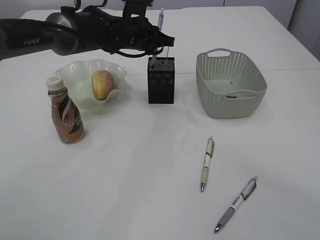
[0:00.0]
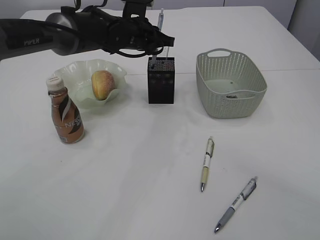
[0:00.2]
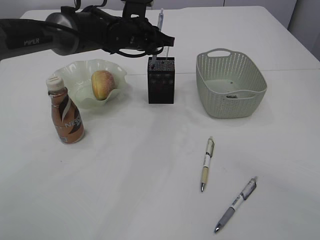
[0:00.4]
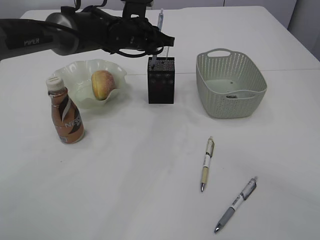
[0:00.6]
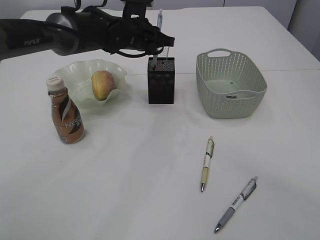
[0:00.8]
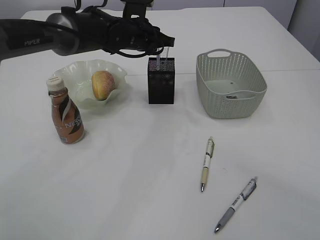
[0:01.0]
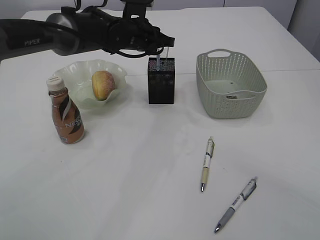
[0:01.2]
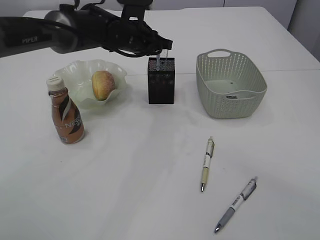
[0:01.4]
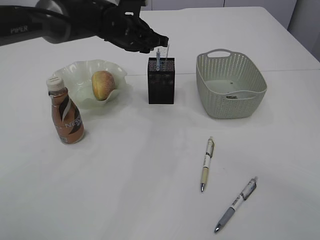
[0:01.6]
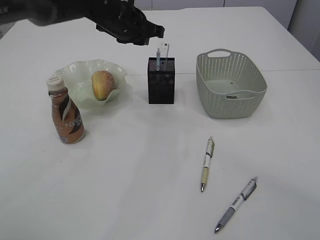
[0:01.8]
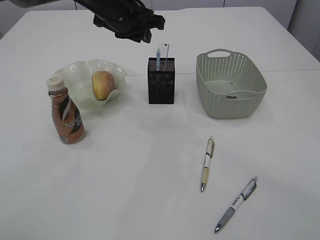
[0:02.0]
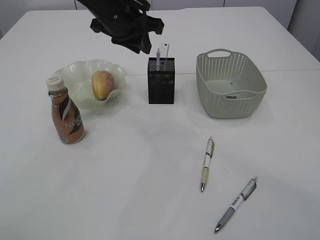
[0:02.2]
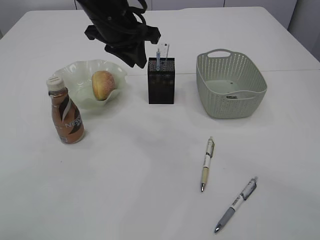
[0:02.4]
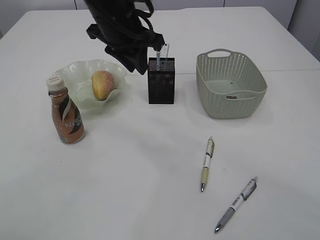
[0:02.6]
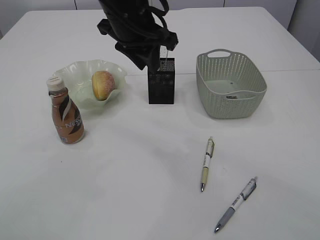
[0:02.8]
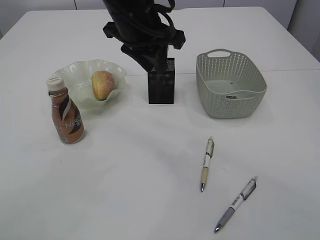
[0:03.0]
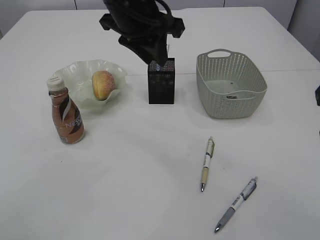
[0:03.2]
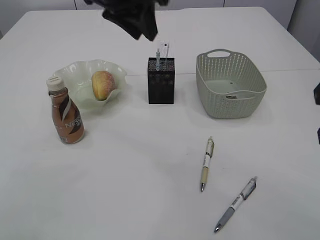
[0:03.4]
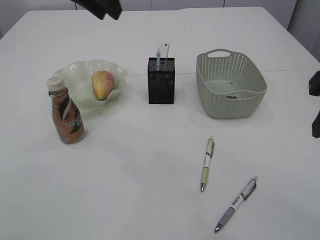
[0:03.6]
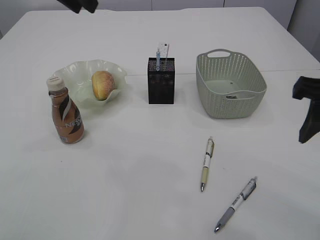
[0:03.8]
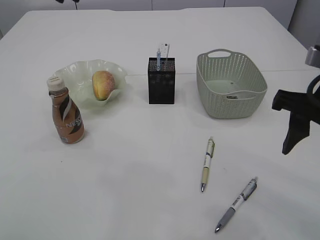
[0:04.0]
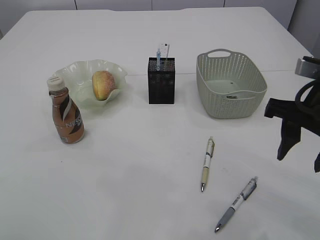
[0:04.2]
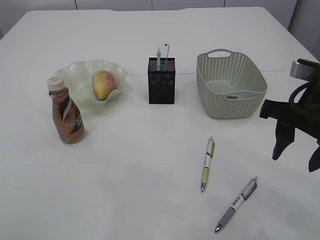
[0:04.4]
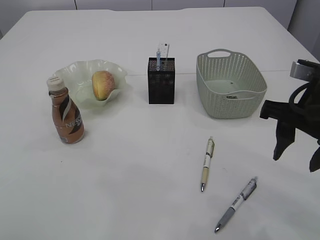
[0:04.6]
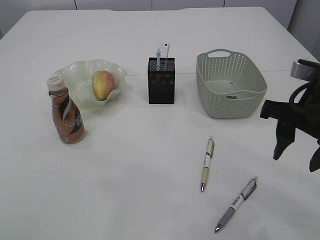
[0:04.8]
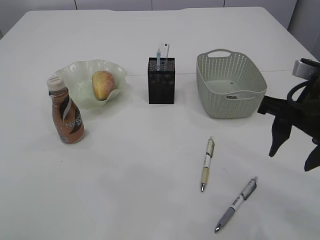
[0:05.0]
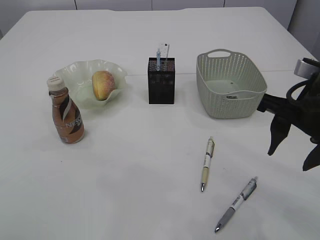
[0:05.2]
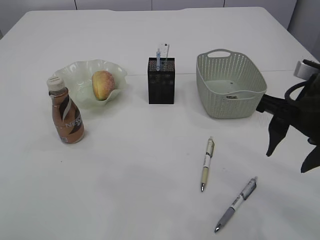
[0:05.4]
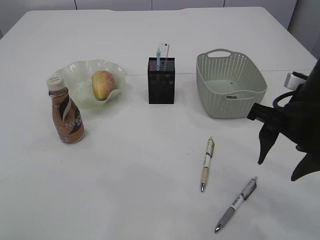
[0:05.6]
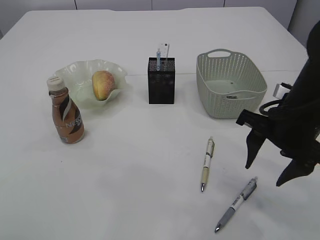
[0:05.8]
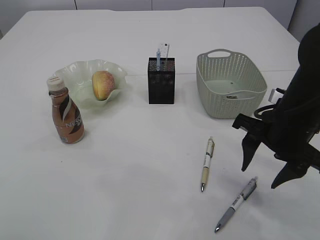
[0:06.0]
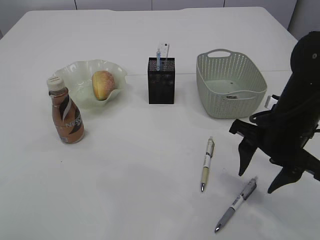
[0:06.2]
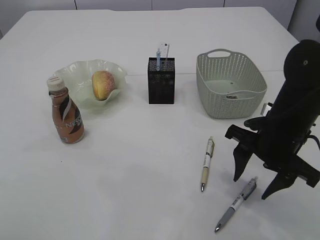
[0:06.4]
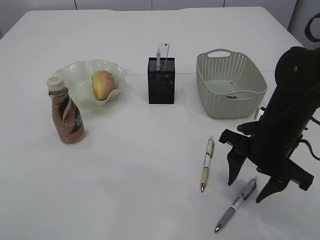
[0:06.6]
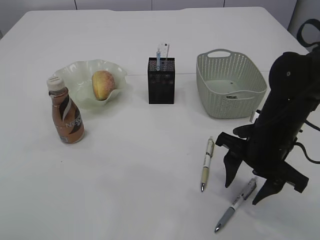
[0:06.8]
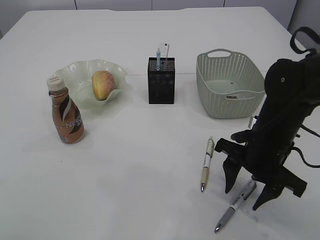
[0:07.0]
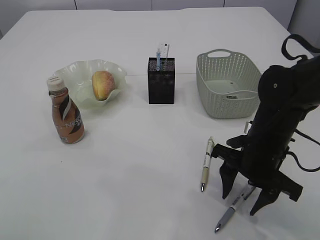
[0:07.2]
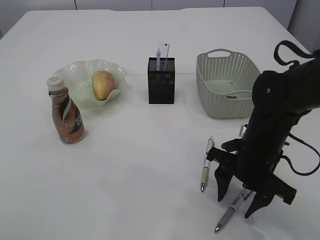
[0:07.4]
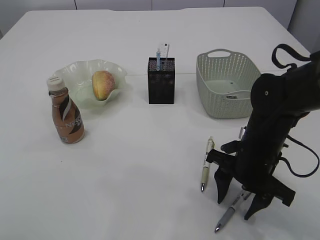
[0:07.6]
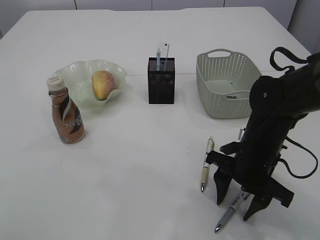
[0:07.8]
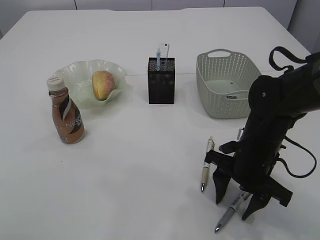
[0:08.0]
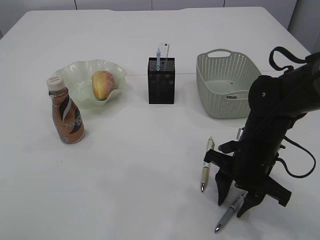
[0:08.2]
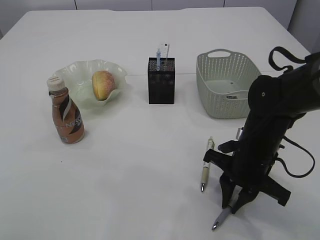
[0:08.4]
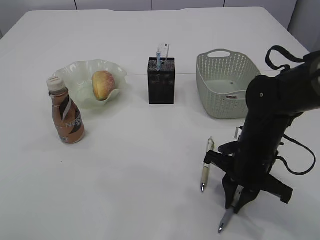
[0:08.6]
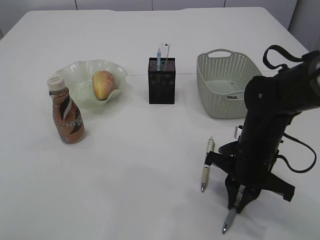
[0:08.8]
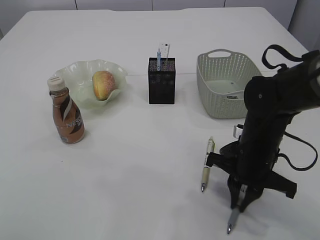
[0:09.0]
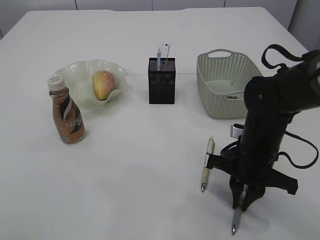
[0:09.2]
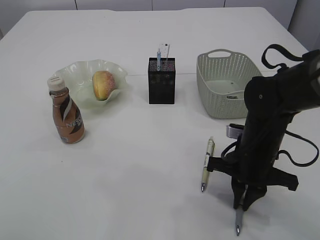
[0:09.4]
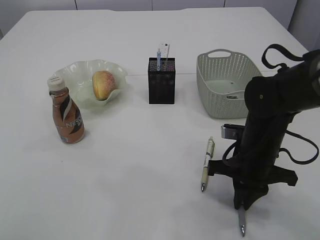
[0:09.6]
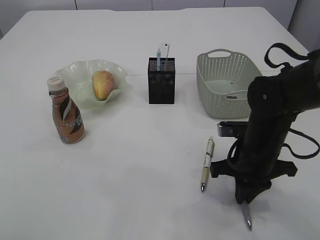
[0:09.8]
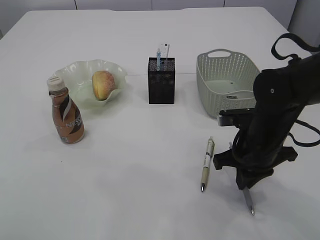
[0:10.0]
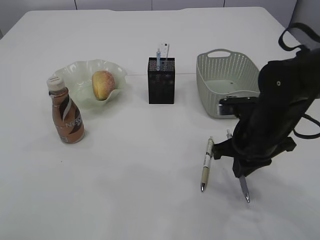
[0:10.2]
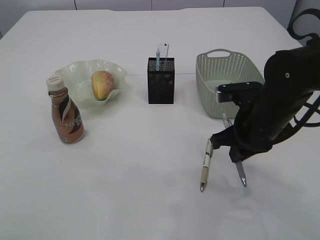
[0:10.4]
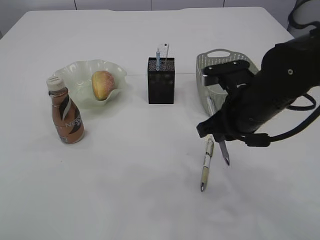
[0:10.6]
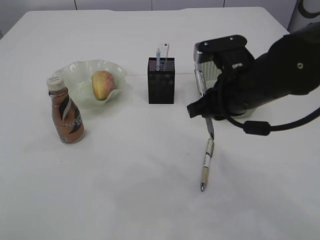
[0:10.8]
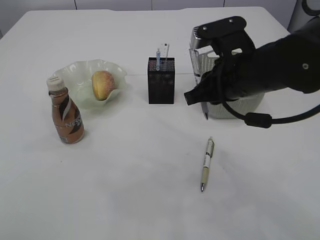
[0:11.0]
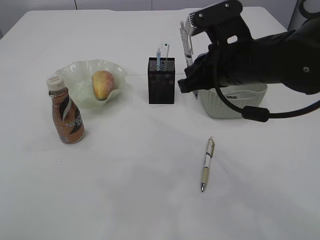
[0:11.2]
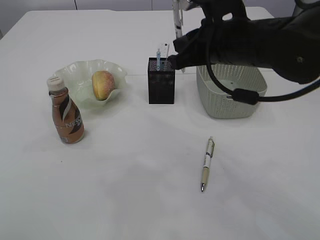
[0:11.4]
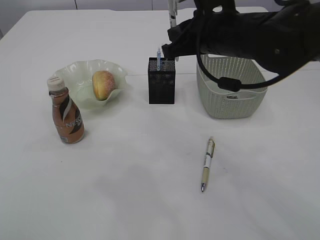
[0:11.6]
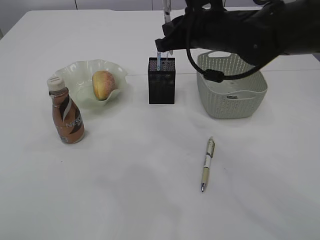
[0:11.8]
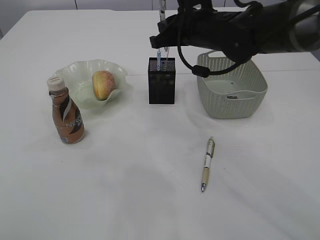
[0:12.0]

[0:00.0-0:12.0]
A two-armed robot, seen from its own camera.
Step, 0:02.0 to 0:10.4: Pick up the pen with right arm.
0:00.0 to 0:01.6: There are only small adjustments of the grippers.
0:01.6 to 0:03.0: The left gripper shifts about 15 cm backward and upward.
0:03.0 to 0:04.4: The right gripper heads downward and forward, covering about 10 cm. The left gripper is displaced to the left and upward by approximately 20 cm.
0:04.4 to 0:06.0: The right gripper is displaced downward by about 5 cm.
0:06.0 to 0:07.6: The right gripper is displaced downward by roughly 10 cm.
0:07.6 to 0:09.0: The right gripper closes up.
0:09.0 to 0:10.4: The right gripper heads upward, covering about 5 cm.
0:10.4 to 0:12.0: The right gripper travels forward, upward and to the left by about 15 cm.

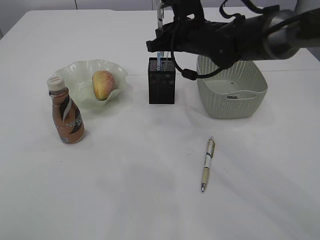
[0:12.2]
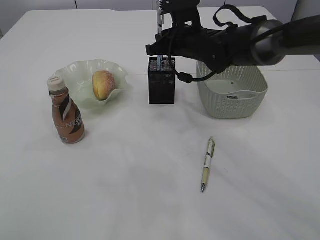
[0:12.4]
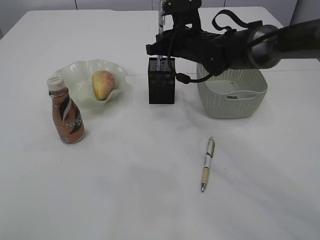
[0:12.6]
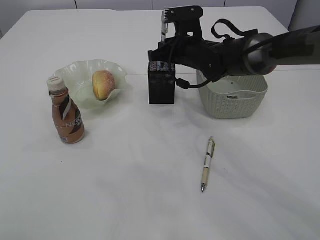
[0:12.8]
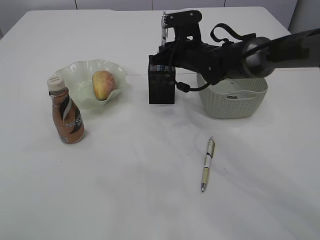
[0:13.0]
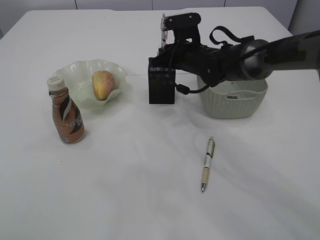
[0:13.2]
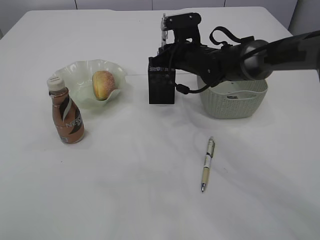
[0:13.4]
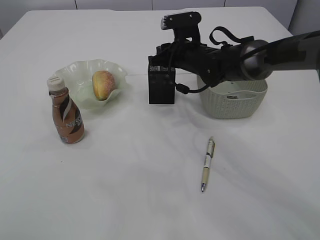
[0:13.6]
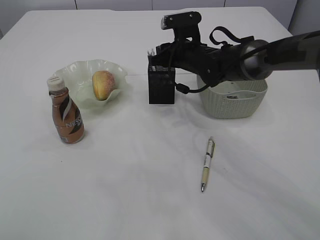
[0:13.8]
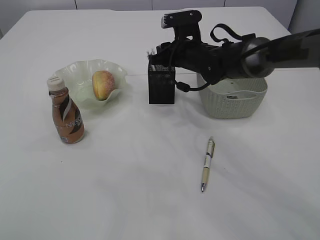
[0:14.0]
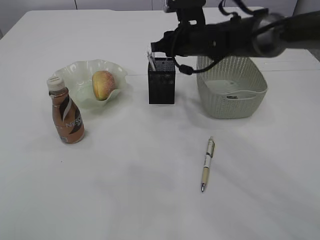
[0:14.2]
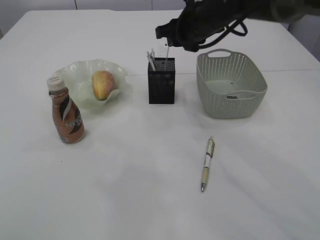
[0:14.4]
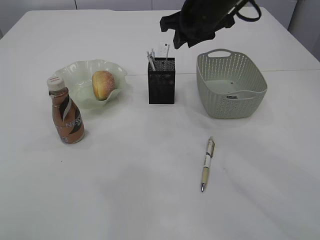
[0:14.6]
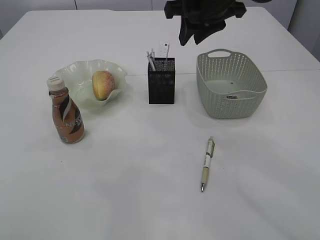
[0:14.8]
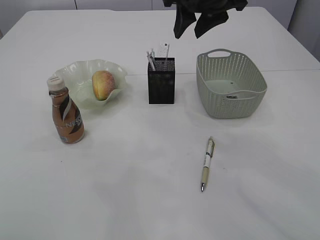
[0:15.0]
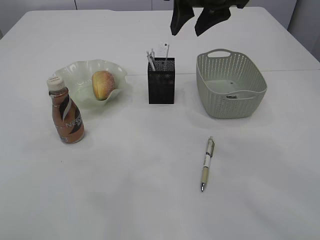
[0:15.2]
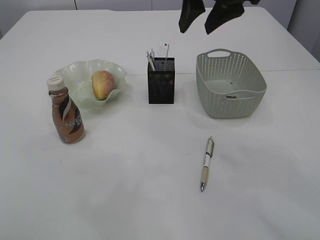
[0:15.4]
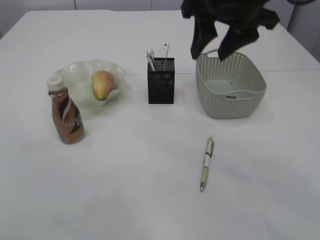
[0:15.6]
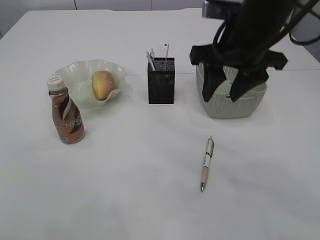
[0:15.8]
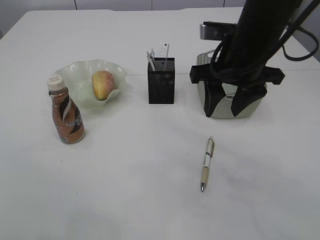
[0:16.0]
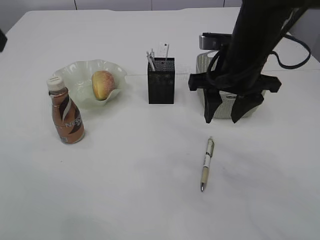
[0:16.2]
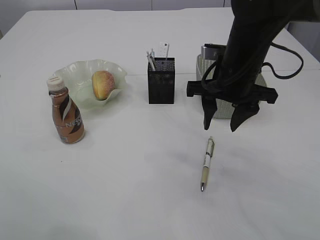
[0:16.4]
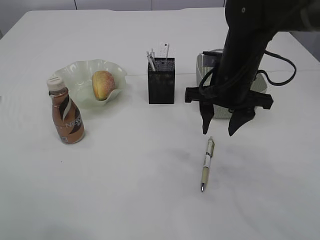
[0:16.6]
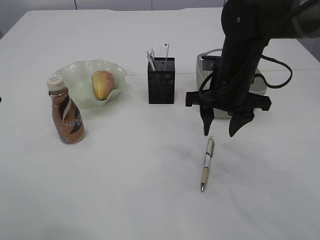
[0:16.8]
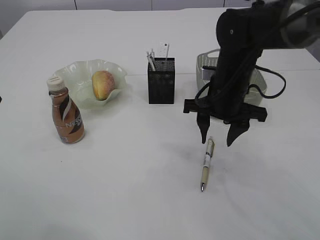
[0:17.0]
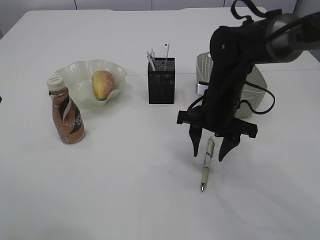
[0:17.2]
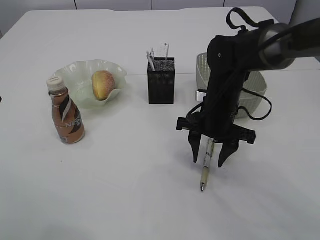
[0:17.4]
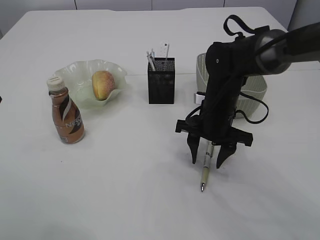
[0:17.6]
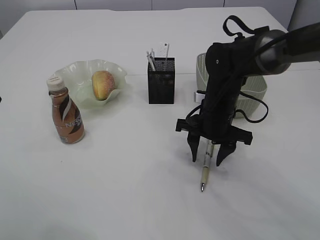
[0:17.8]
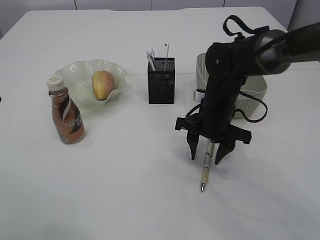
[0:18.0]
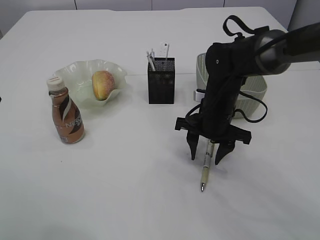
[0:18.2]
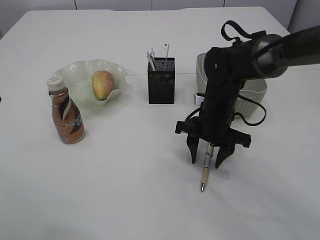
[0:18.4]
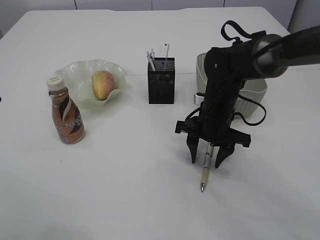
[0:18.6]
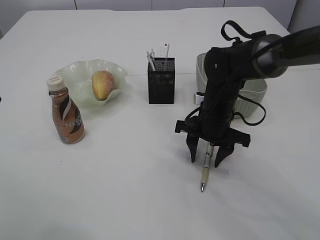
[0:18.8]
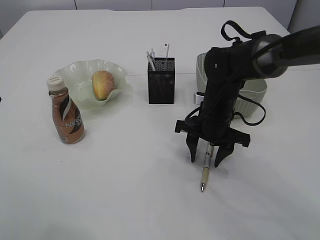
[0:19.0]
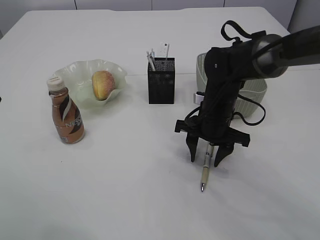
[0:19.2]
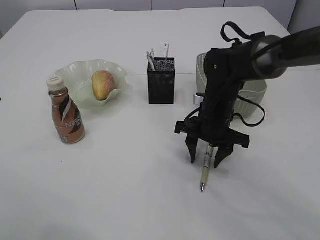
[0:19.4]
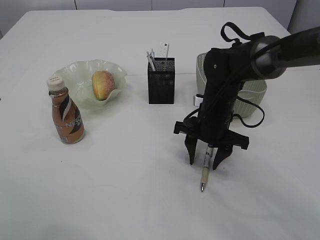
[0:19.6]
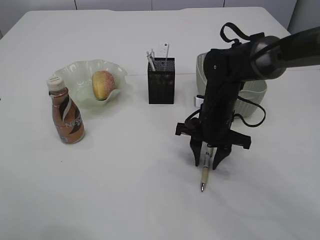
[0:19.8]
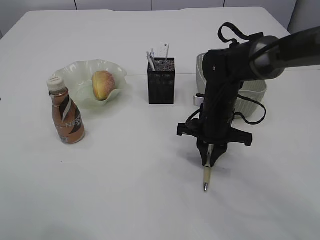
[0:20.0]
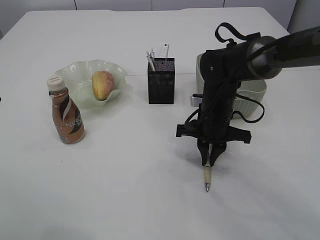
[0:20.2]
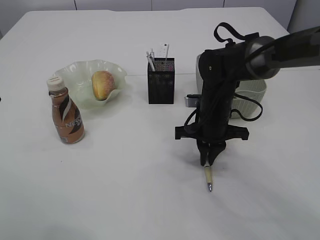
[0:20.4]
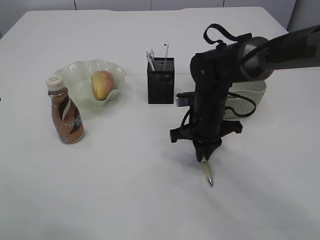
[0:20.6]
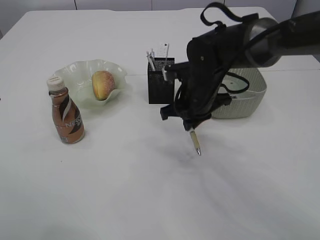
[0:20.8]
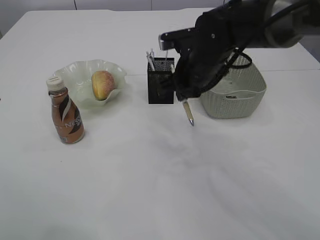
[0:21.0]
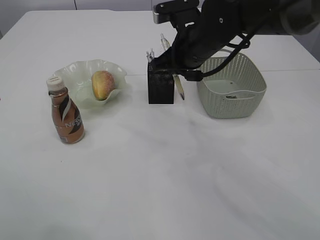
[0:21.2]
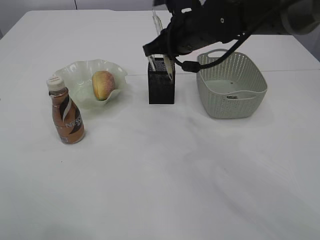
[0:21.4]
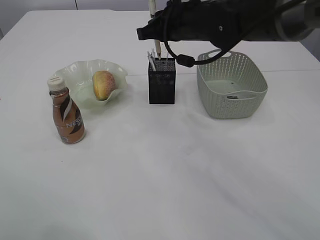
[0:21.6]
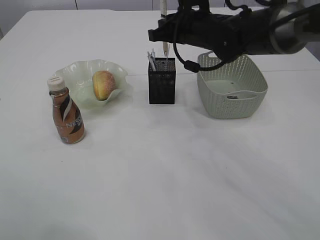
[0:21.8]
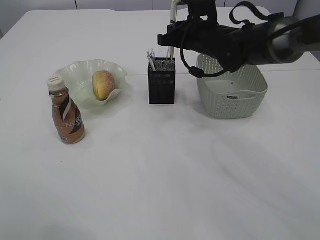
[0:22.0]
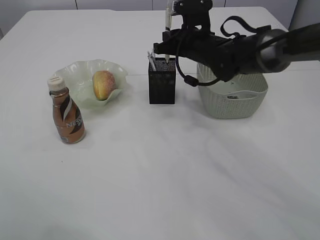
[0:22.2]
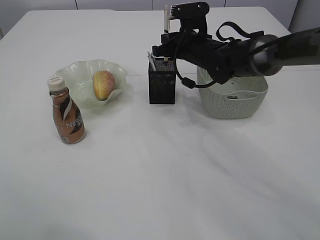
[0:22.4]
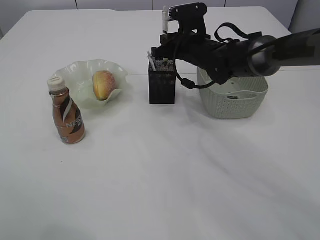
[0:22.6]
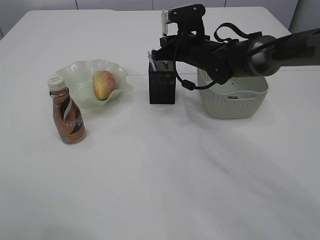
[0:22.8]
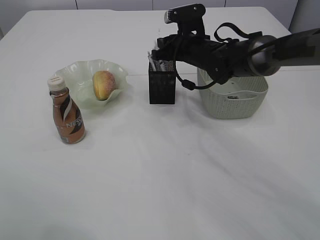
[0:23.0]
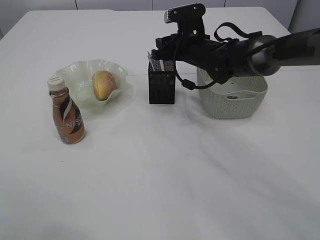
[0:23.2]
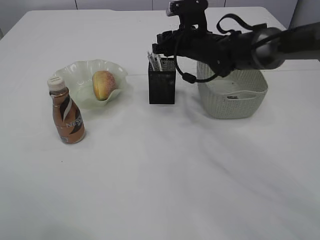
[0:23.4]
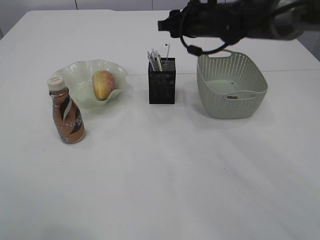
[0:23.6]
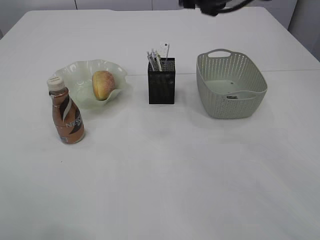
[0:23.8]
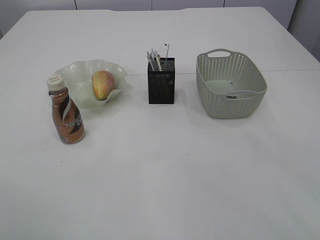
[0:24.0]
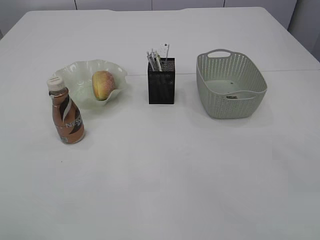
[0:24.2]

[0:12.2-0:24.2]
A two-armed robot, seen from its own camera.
Step, 0:12.2 to 0:14.4: Place the pen into the pen holder.
Step, 0:14.6 to 0:20.8: Pick up the pen with right arm.
Step, 0:21.0 to 0:23.6: Place the pen into the pen holder.
0:12.2 to 0:13.8: The right gripper shifts roughly 5 cm downward, and opens.
0:13.8 to 0:15.2: The right gripper goes about 20 cm upward and backward.
0:15.2 to 0:16.6: The left gripper moves downward, backward and to the left, some 15 cm. The right gripper shifts approximately 15 cm downward.
0:16.6 to 0:18.2: The right gripper is displaced downward by approximately 10 cm.
0:18.2 to 0:19.8: The two grippers keep their place.
0:19.8 to 0:21.2: The right gripper travels upward by some 15 cm, and closes.
0:21.2 to 0:22.6: The right gripper is displaced forward and downward by some 10 cm.
0:22.6 to 0:24.2: The right gripper shifts roughly 30 cm upward and backward, and opens up, while the left gripper goes approximately 5 cm upward.
